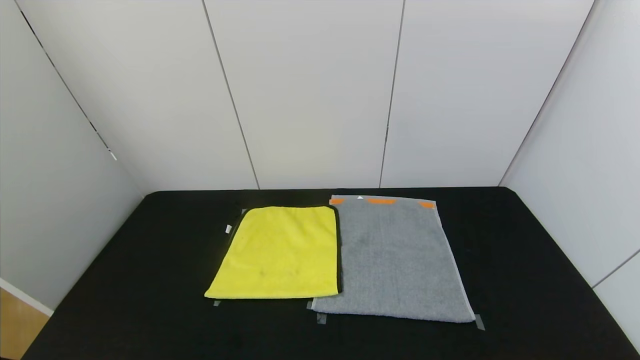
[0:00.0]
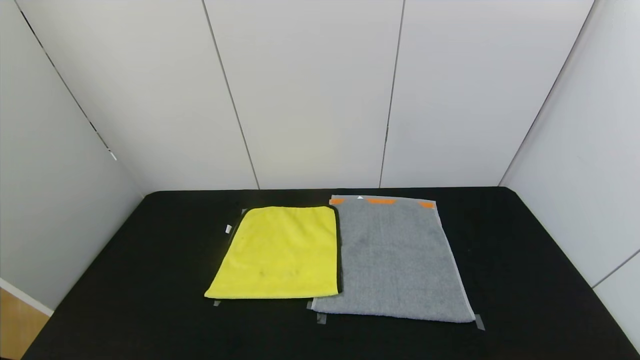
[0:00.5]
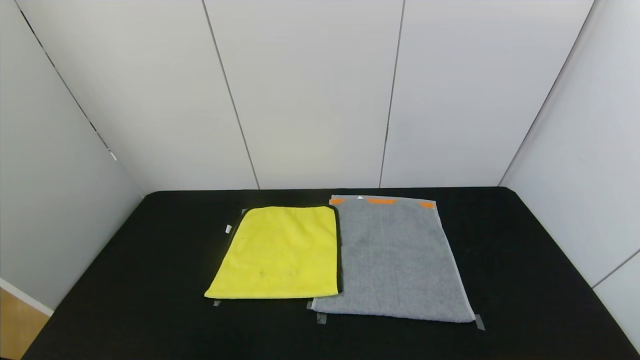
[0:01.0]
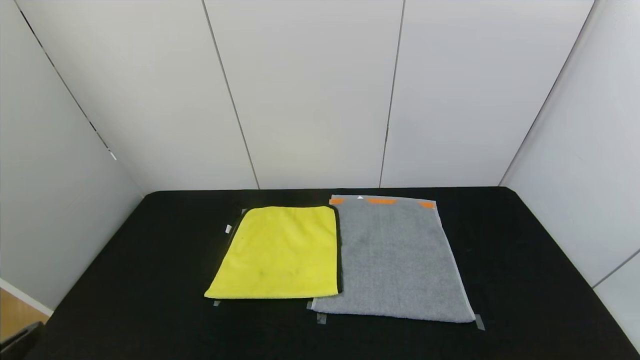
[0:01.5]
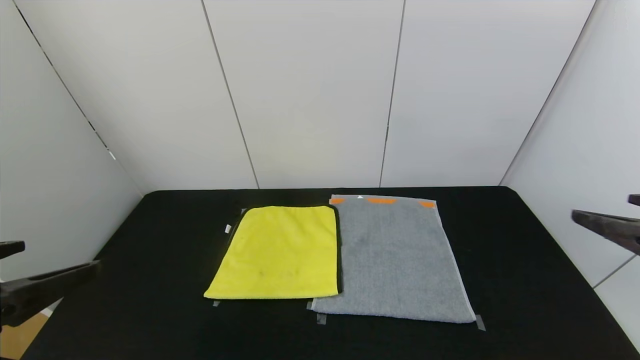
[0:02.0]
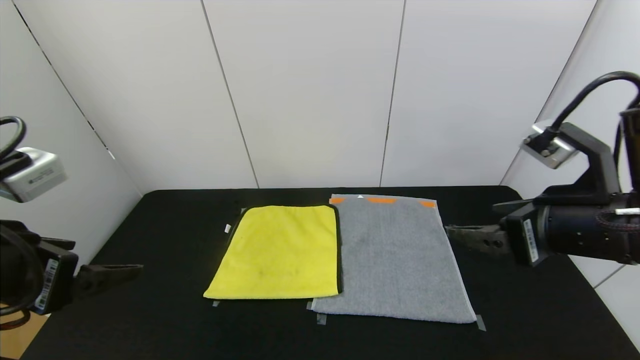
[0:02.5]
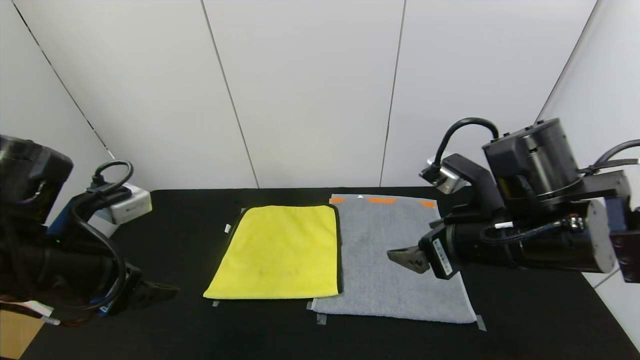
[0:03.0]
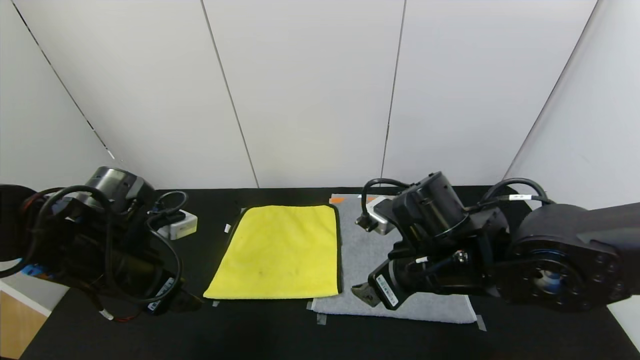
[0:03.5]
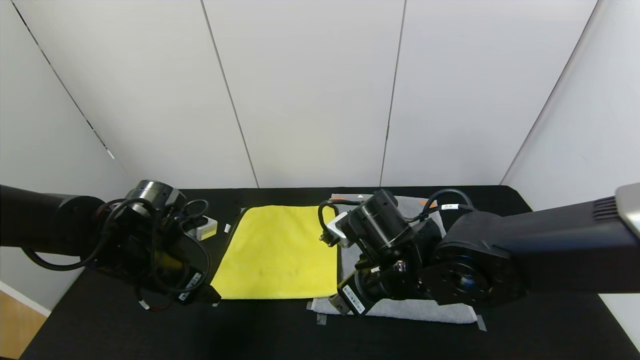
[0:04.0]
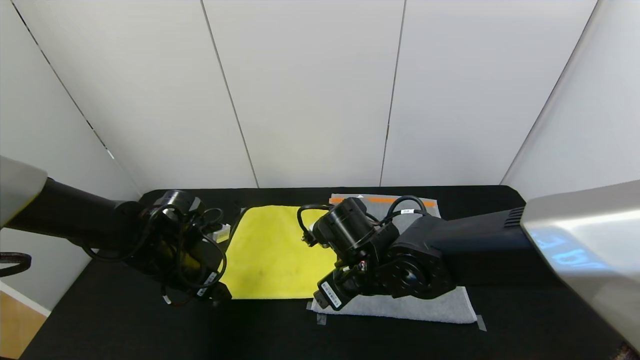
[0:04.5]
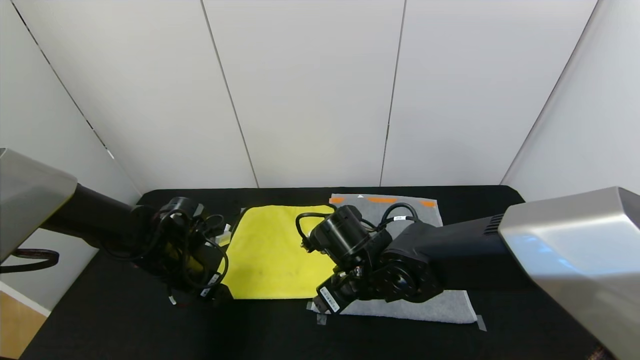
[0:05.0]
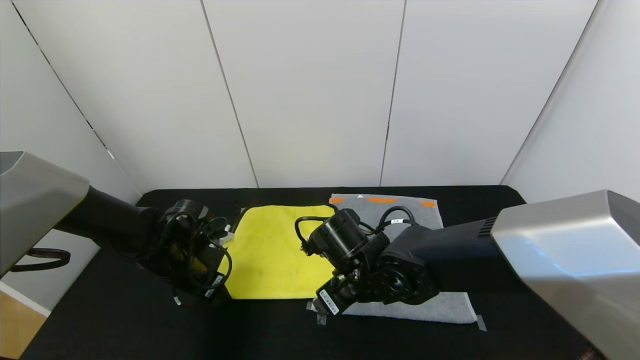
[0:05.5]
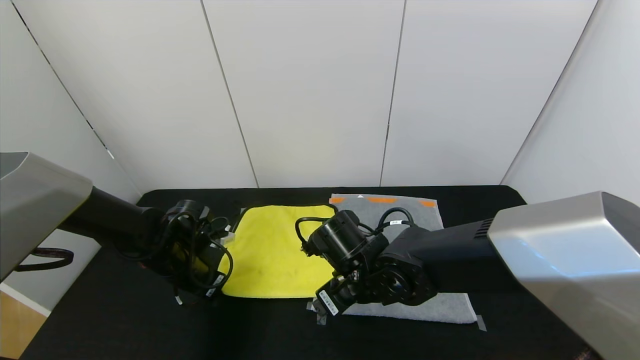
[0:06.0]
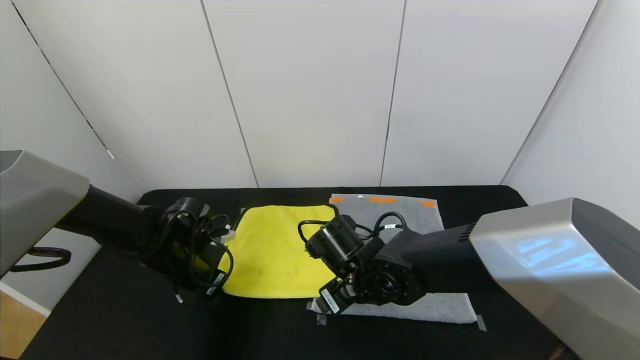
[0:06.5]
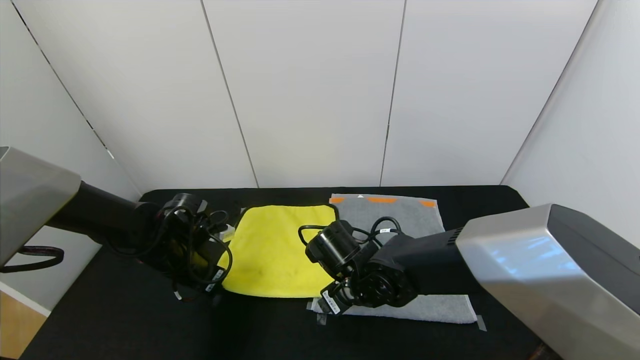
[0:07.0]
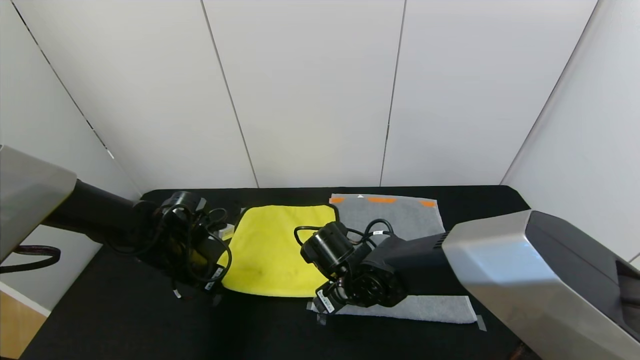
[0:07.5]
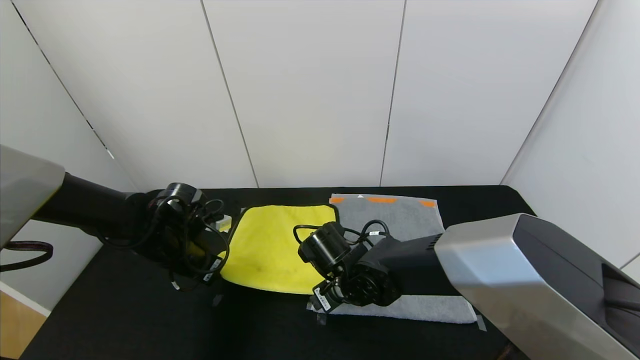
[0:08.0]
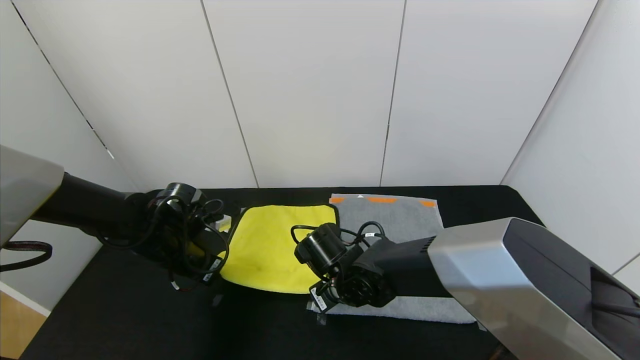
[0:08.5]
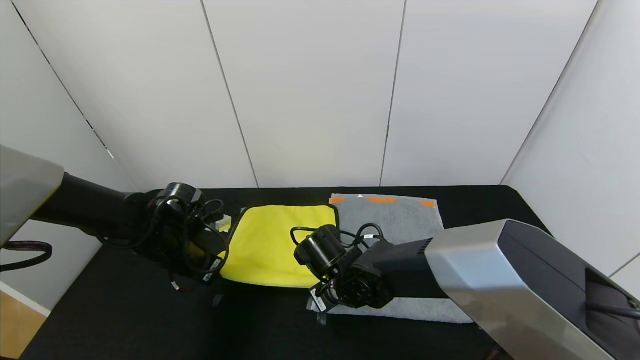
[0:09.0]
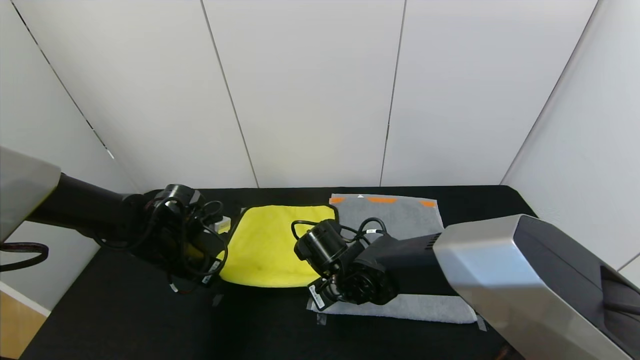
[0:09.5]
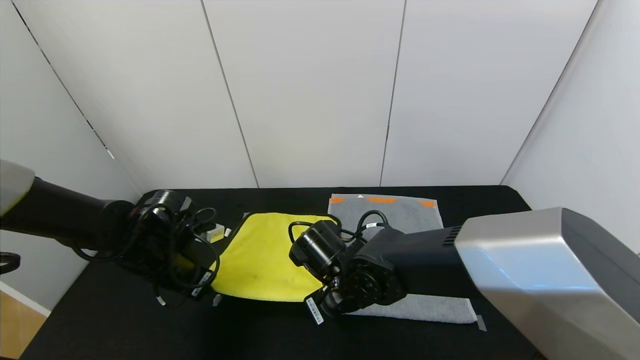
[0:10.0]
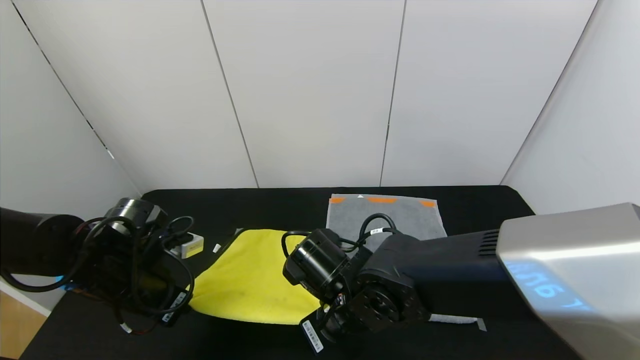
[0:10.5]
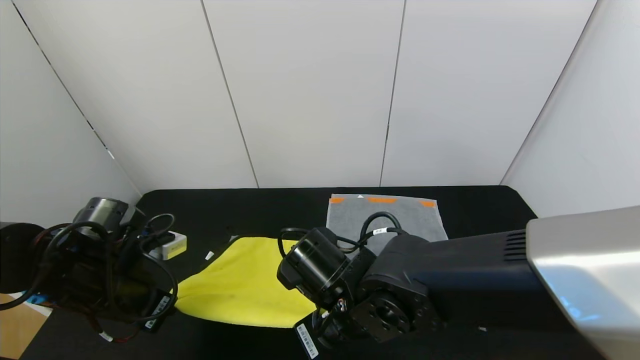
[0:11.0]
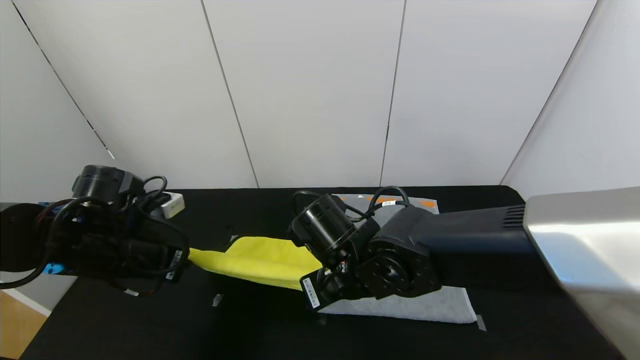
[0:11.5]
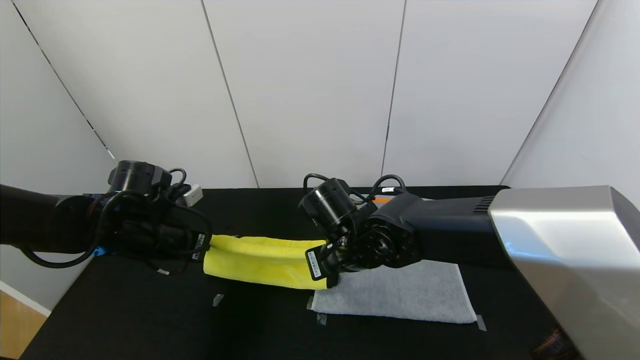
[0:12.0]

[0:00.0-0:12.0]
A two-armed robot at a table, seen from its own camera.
Task of the whole recording: Use the gripper to fold the yellow towel and grey towel in half twice,then put the yellow towel on the grey towel.
0:00.0 to 0:02.0: The two grippers go about 25 cm upward and forward.
0:02.0 to 0:04.0: The left gripper shifts some 25 cm forward and downward. Meanwhile the right gripper heads to the left, downward and forward, covering approximately 30 cm.
0:04.0 to 0:06.0: The right gripper changes place by roughly 5 cm. The left gripper travels downward and forward by roughly 10 cm, and closes.
0:06.0 to 0:08.0: The grippers move only a little.
0:08.0 to 0:10.0: The right gripper closes its fingers.
0:10.0 to 0:12.0: The right gripper ends up roughly 5 cm from where it was, while the left gripper travels backward and back again, some 10 cm each way.

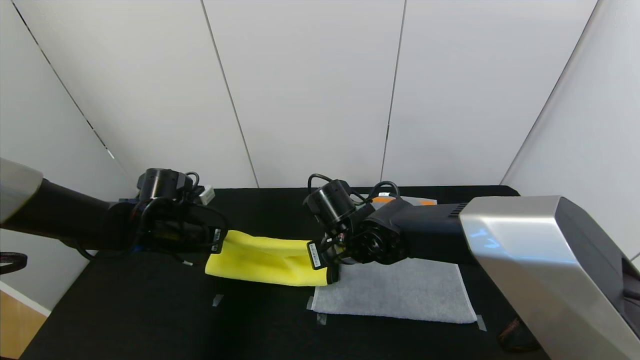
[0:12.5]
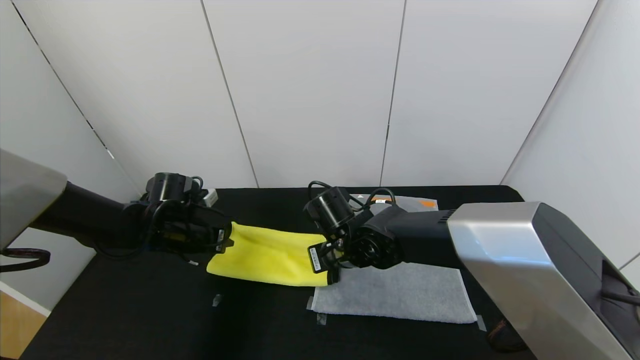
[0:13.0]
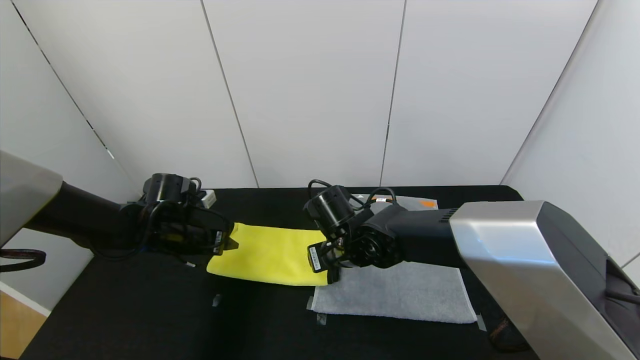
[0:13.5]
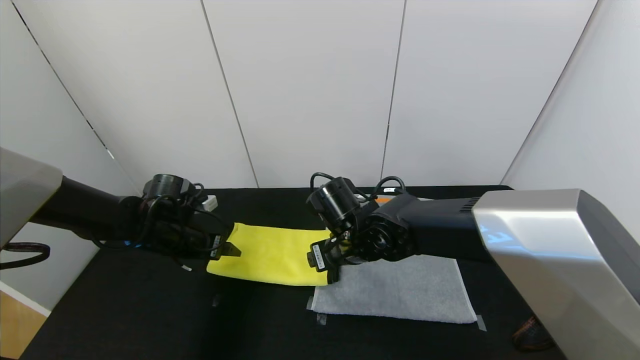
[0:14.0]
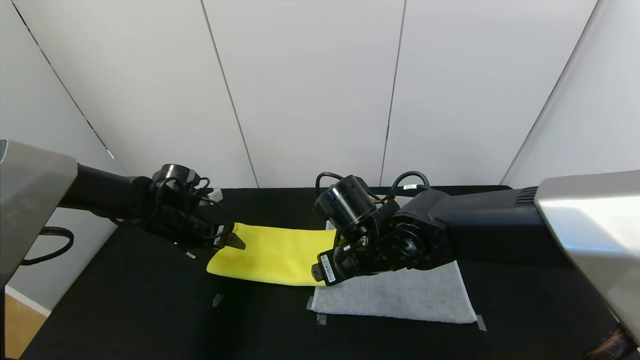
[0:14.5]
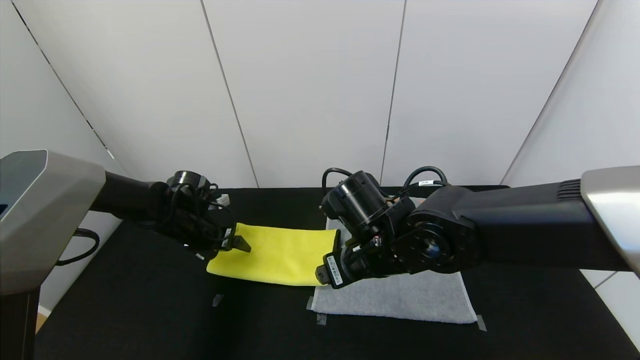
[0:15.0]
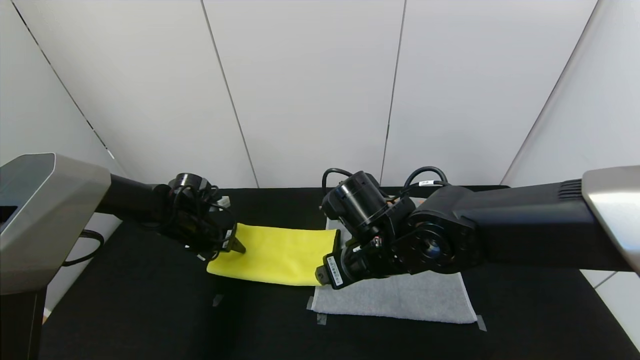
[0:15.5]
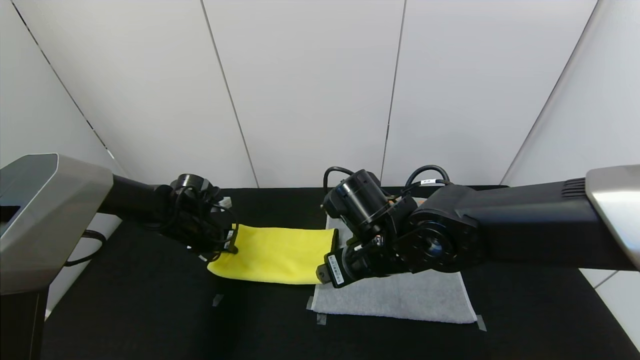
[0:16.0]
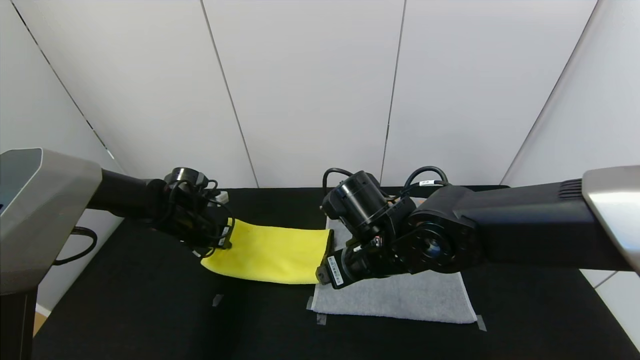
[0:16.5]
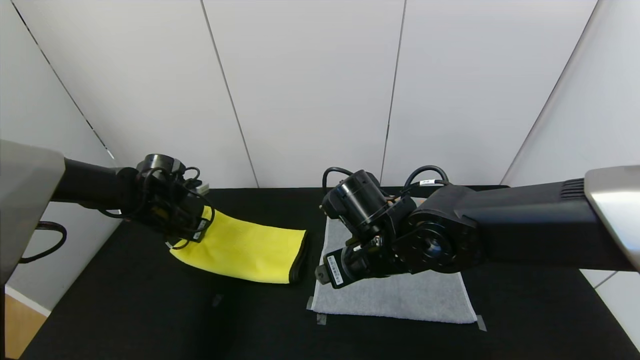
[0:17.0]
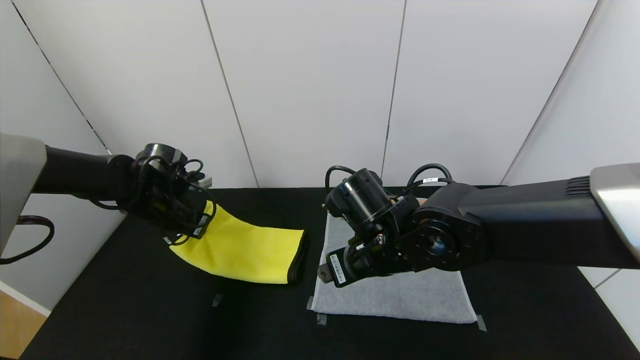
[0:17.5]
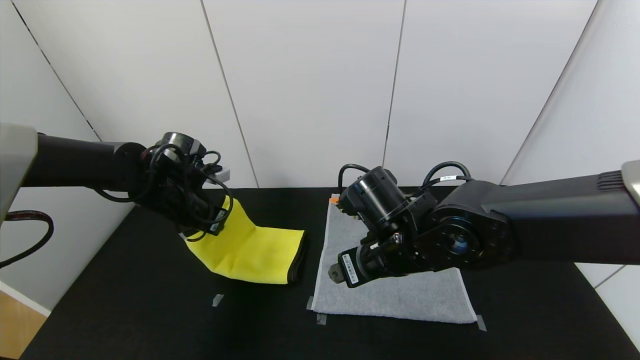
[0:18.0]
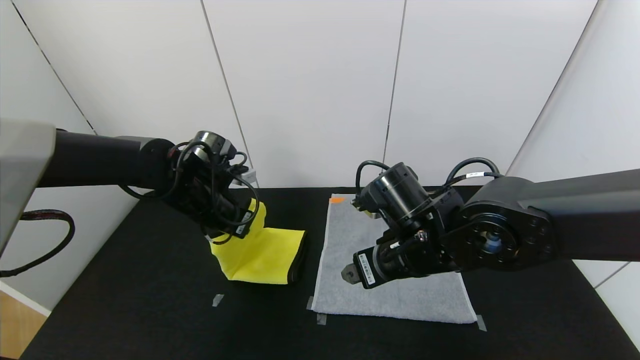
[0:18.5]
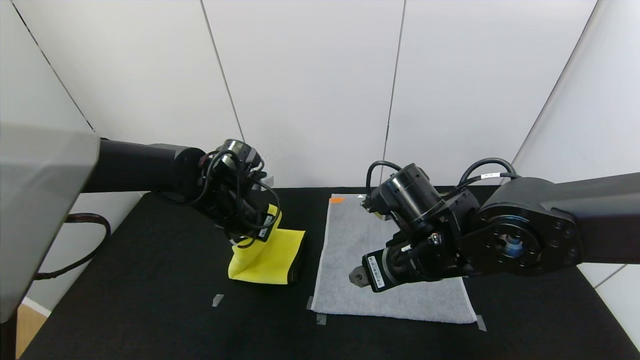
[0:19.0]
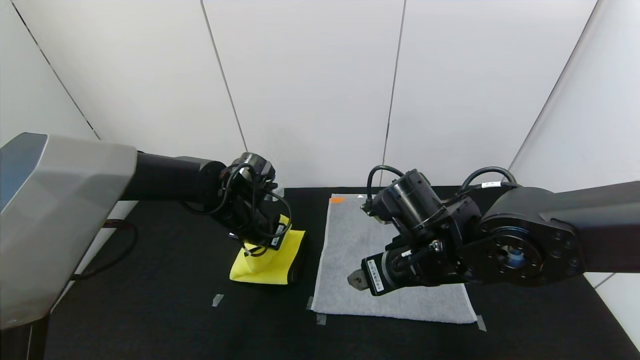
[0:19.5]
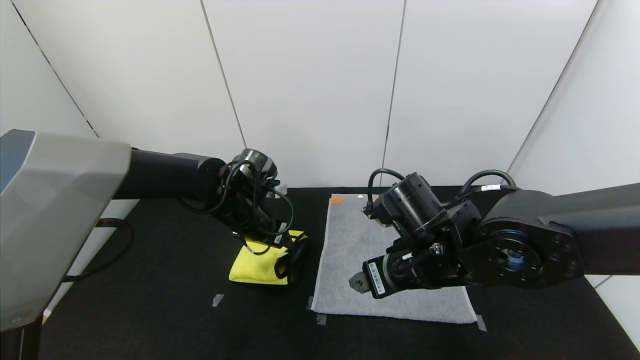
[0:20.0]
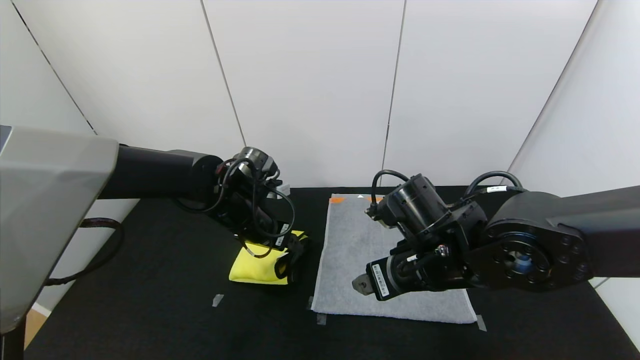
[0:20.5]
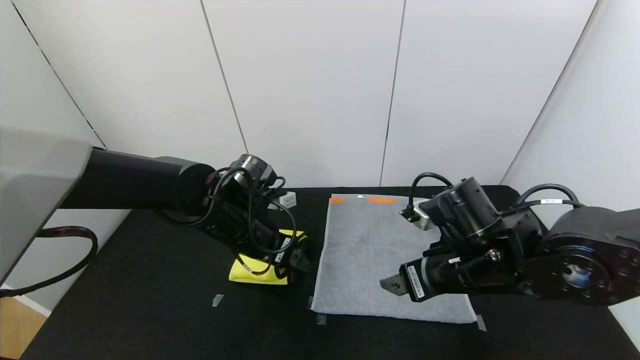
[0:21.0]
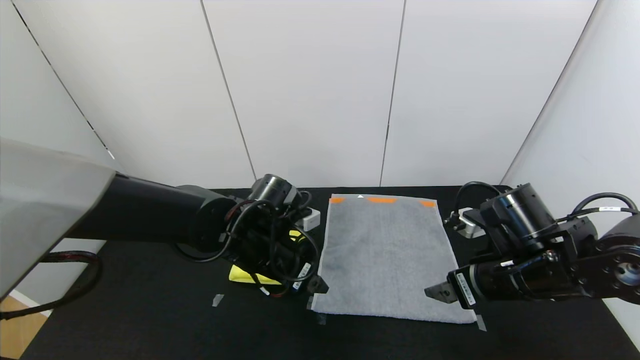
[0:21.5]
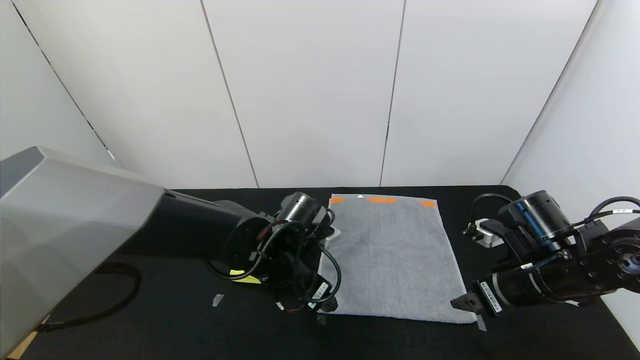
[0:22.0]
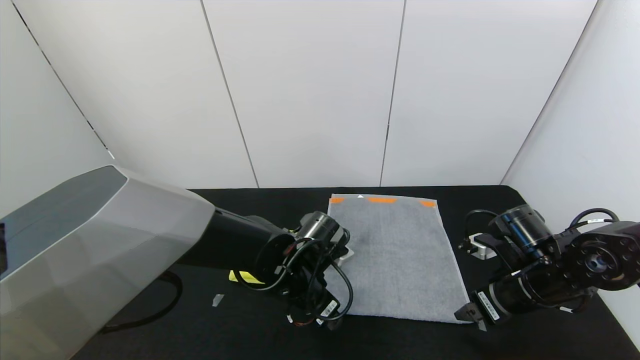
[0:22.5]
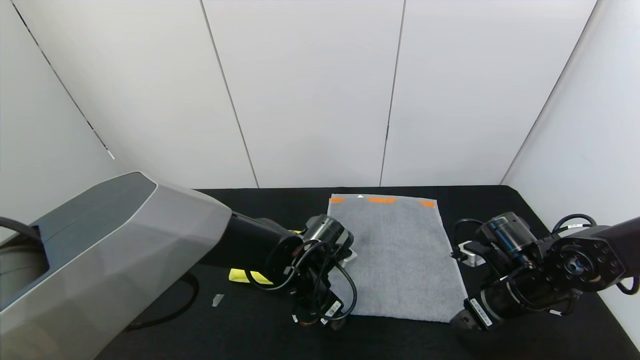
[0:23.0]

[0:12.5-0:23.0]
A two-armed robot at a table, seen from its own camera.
Task of the whole recording: Use the gripper to fold the yellow towel and grey towel in half twice,then put the yellow towel on the grey towel.
Step, 0:14.0 to 0:20.0: Fold the yellow towel from left to right with left gripper.
0:12.5 to 0:14.5: The right gripper changes place by about 5 cm, and opens up. The left gripper opens its fingers.
0:14.5 to 0:16.5: The left gripper closes.
0:16.5 to 0:19.0: The left gripper moves to the right and upward, roughly 15 cm. Meanwhile the right gripper moves to the right, roughly 5 cm.
0:19.0 to 0:21.0: The right gripper shifts approximately 5 cm to the right; the left gripper shifts by some 5 cm, and opens up.
0:21.0 to 0:23.0: Both grippers move to the right and downward, roughly 15 cm.
